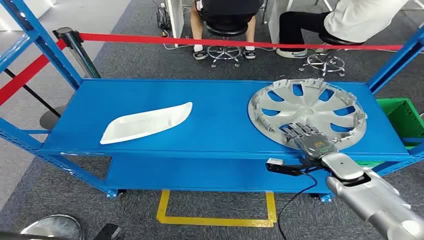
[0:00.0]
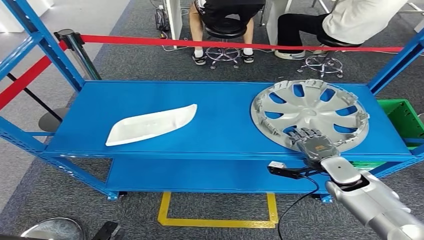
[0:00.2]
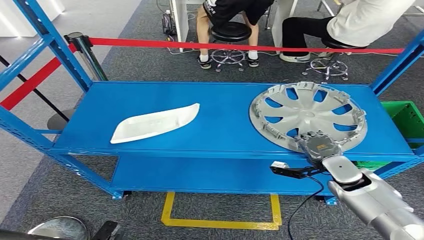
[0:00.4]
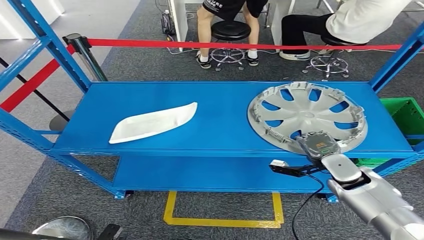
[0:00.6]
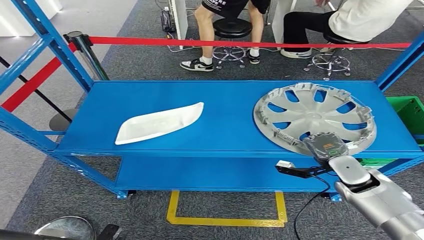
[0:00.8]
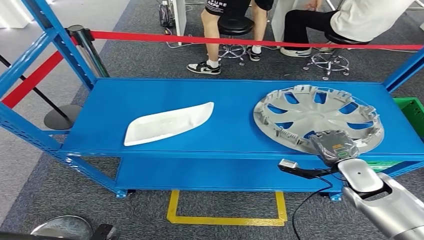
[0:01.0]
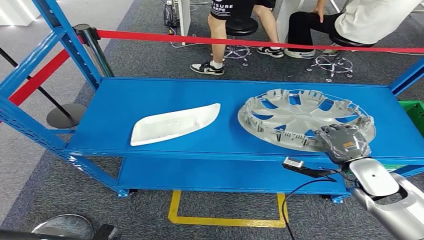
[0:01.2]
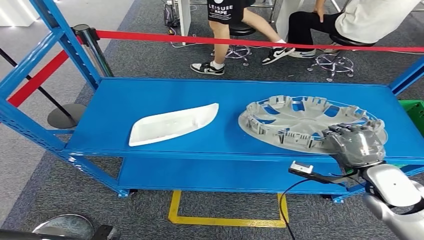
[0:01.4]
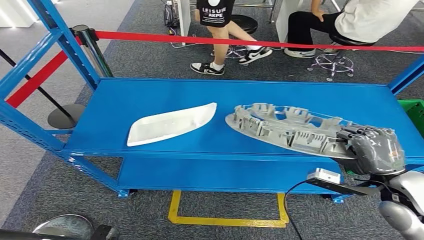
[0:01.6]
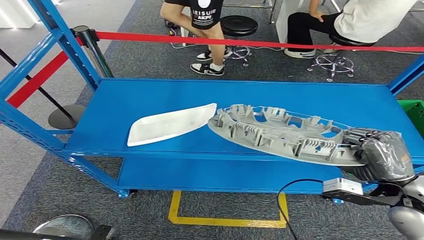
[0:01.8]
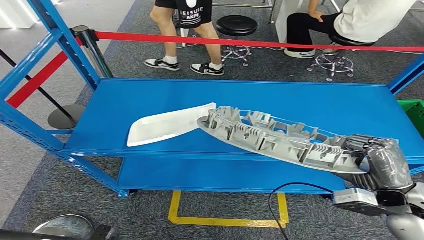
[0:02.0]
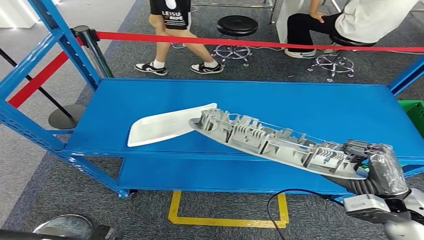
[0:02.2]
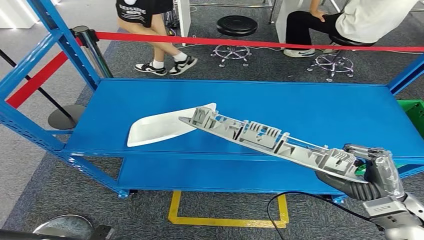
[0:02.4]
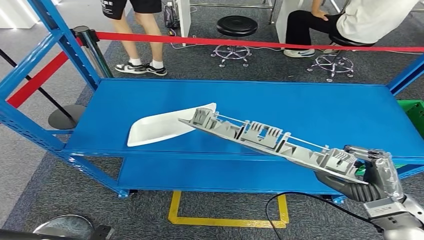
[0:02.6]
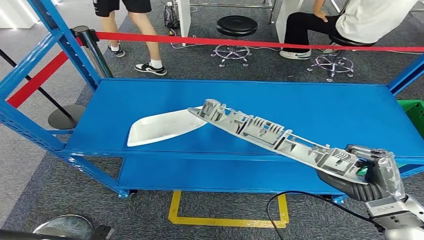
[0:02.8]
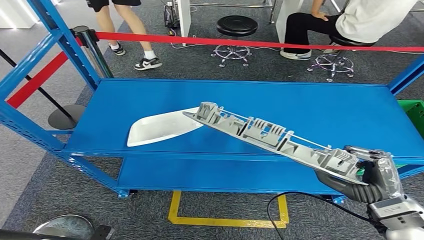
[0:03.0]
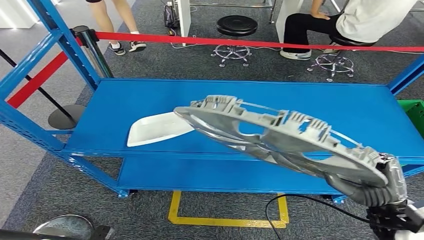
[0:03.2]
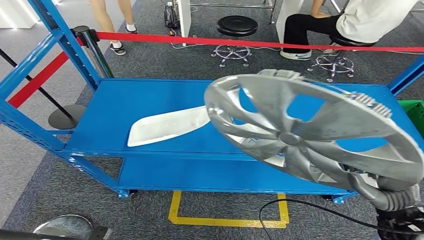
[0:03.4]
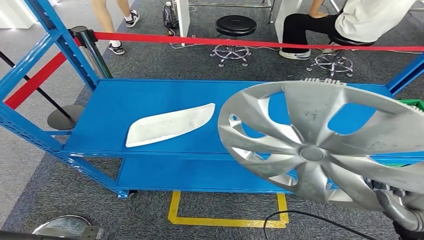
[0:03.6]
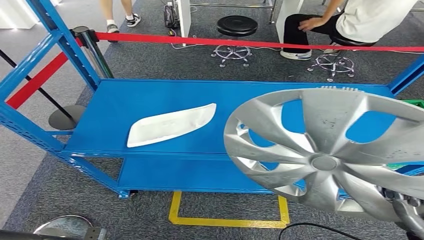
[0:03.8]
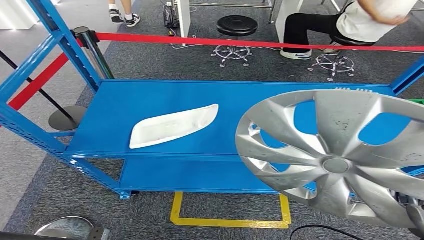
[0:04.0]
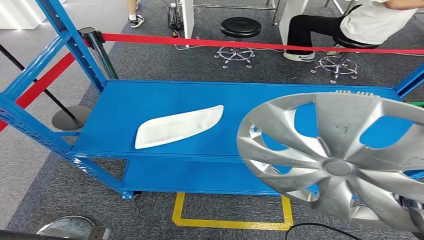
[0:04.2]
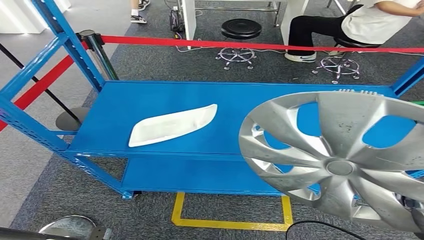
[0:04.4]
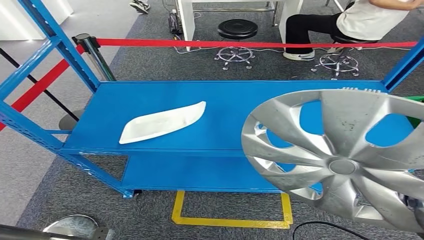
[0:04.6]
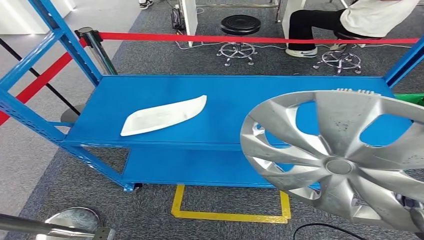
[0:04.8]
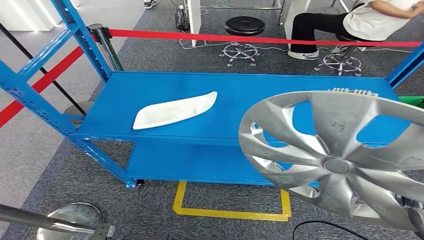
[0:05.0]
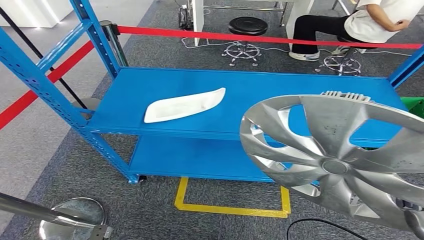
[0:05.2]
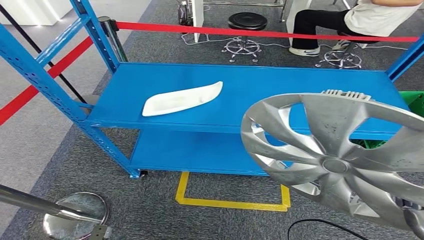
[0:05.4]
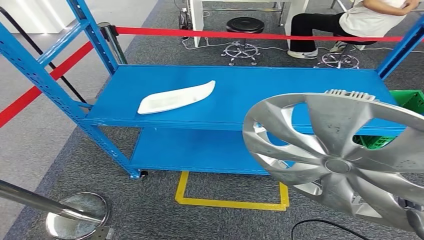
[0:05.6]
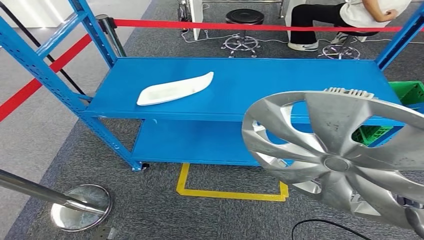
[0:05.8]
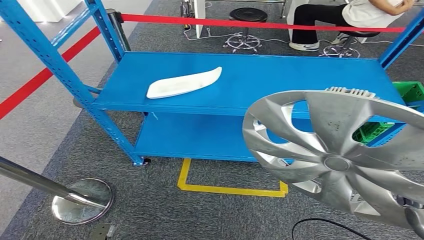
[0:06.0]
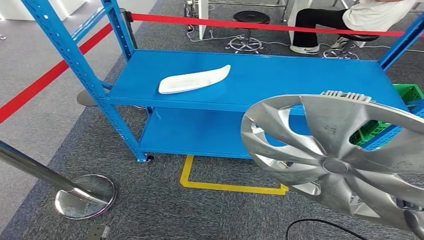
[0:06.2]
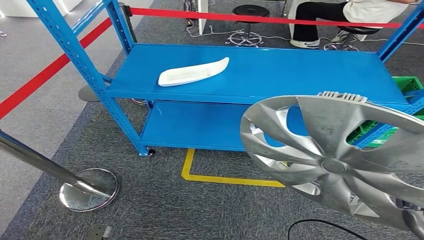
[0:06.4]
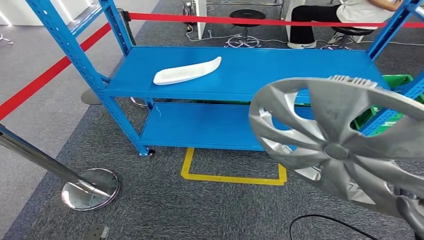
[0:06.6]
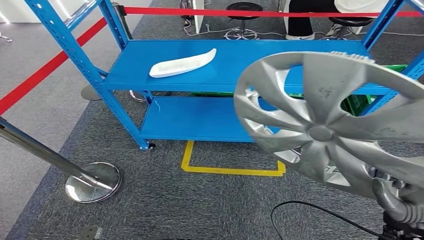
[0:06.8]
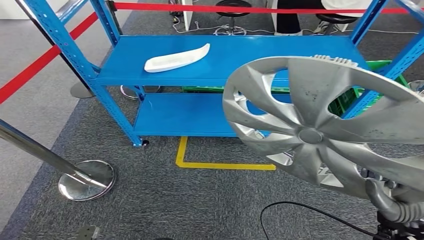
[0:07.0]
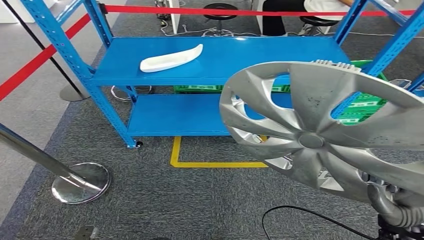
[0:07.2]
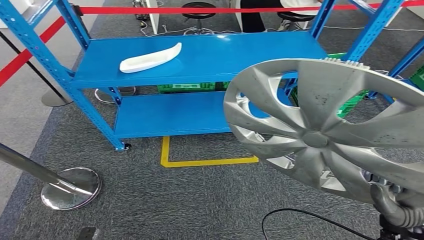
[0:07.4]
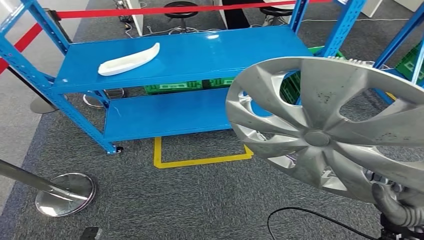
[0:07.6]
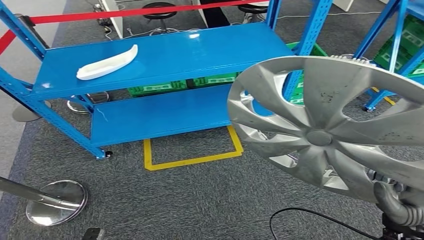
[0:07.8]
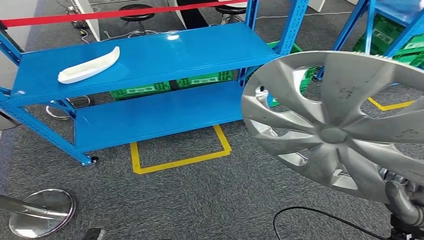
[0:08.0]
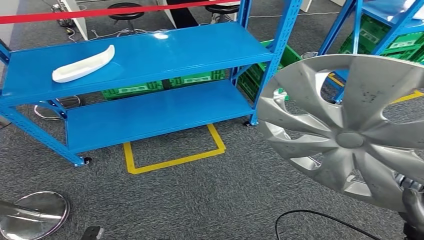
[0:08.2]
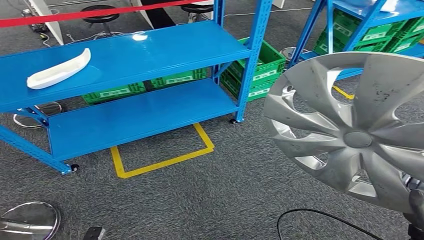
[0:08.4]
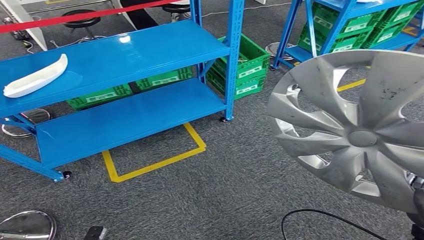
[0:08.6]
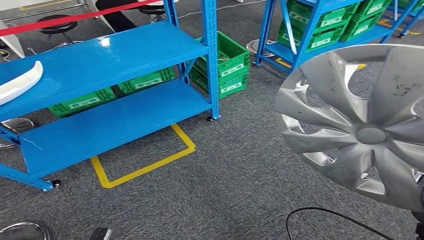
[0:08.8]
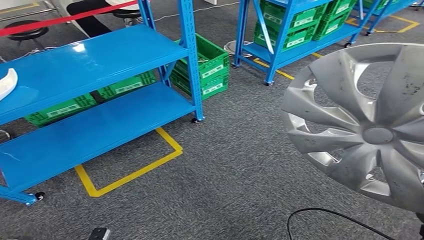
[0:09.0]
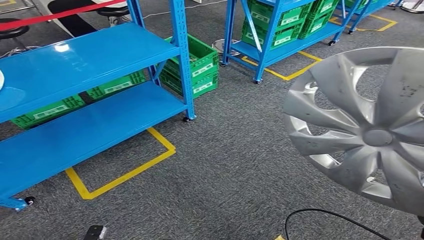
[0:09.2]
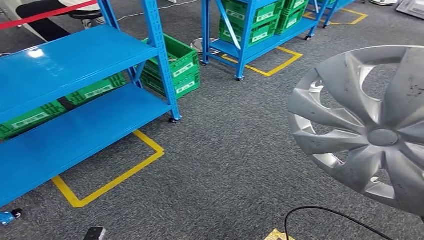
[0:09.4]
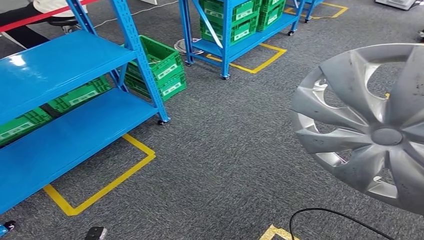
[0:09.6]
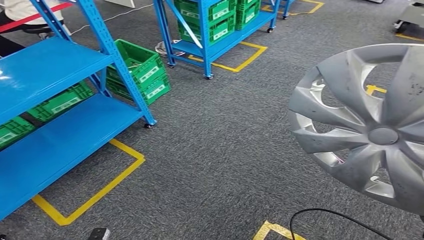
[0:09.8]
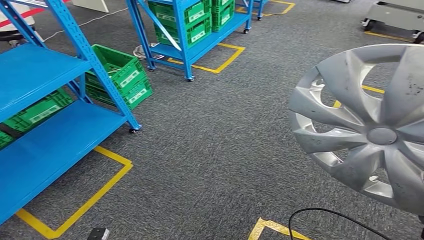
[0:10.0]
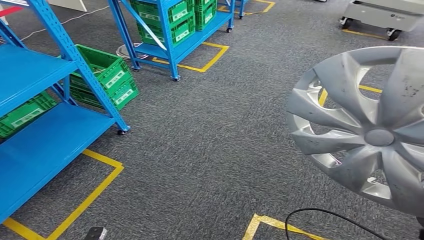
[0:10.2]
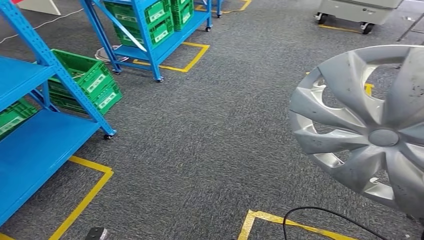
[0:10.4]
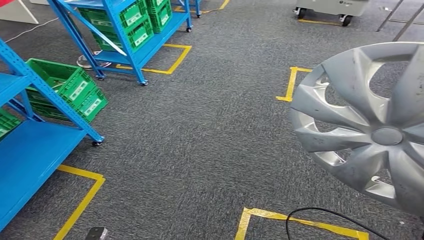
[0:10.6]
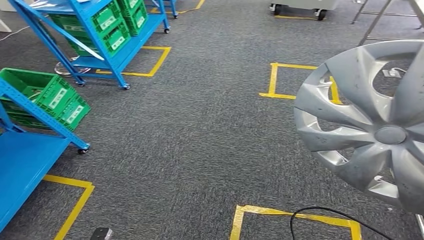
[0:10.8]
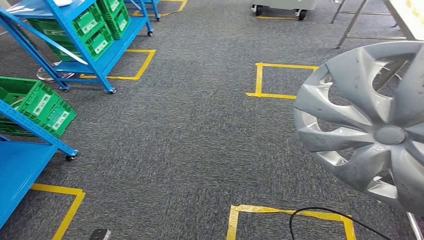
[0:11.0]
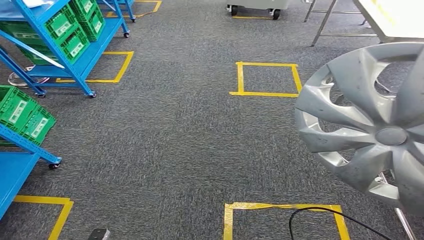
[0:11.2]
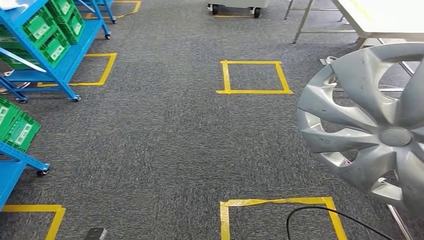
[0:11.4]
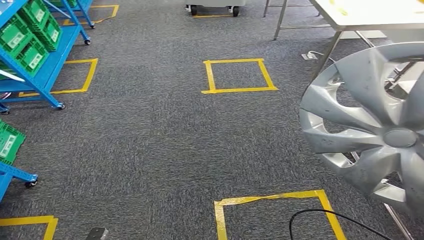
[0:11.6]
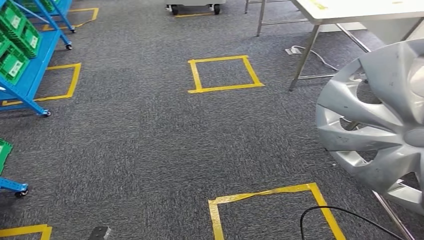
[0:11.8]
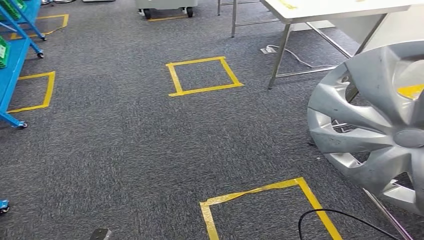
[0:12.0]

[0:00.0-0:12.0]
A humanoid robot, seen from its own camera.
Step, 0:00.0 to 0:02.8: Pick up the small component from the shelf.
0:01.6 to 0:03.0: The right hand shifts some 5 cm backward.

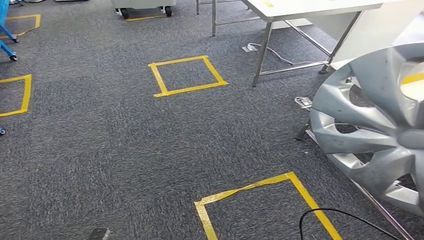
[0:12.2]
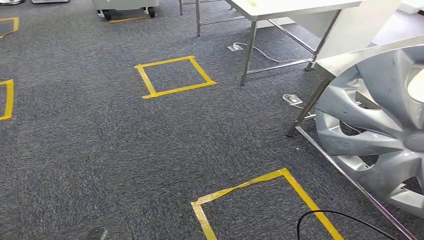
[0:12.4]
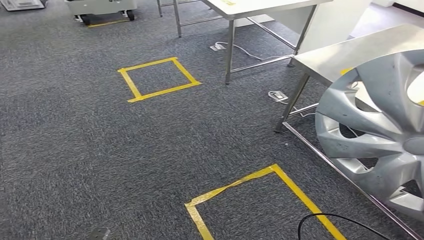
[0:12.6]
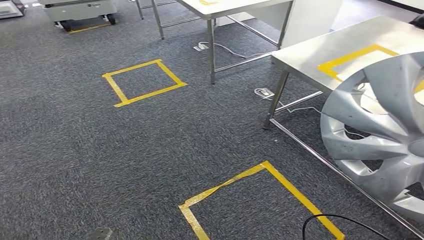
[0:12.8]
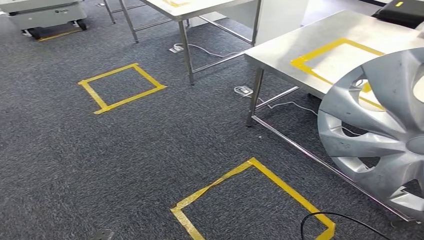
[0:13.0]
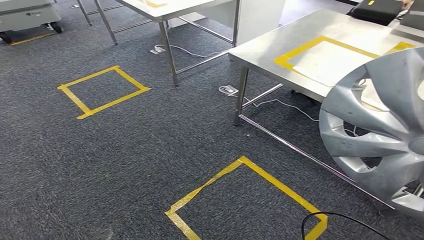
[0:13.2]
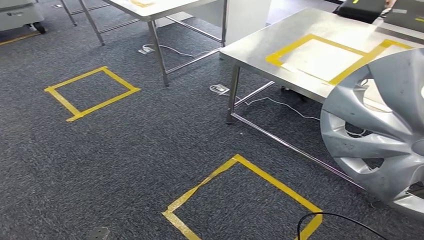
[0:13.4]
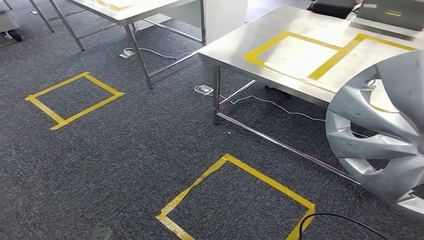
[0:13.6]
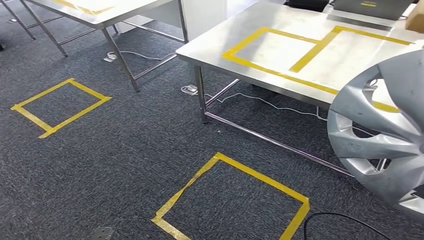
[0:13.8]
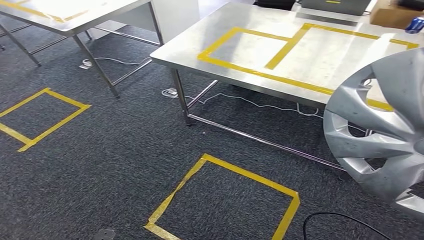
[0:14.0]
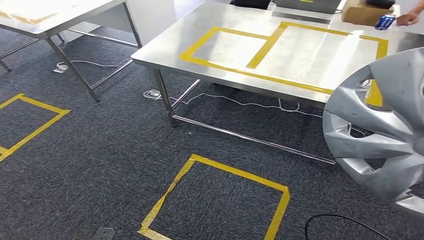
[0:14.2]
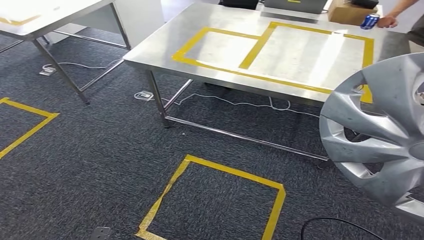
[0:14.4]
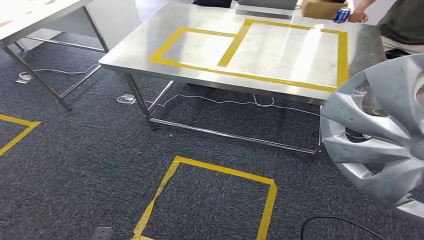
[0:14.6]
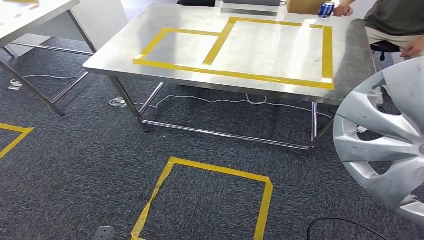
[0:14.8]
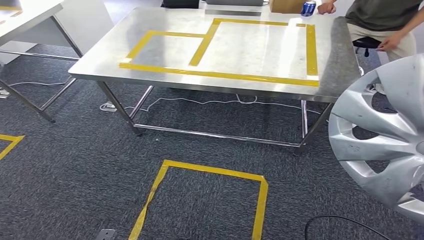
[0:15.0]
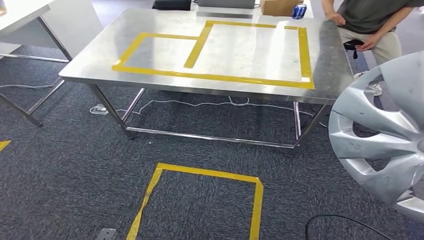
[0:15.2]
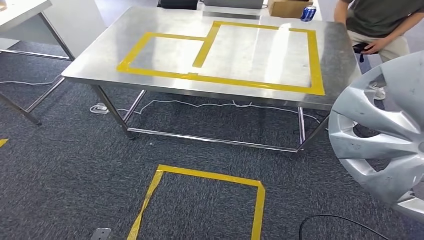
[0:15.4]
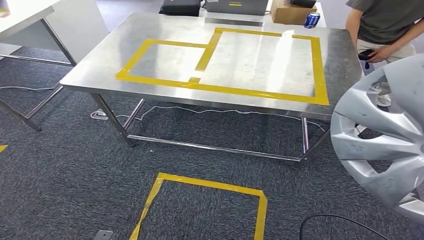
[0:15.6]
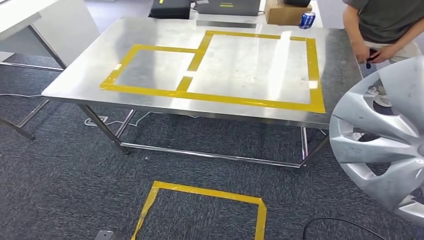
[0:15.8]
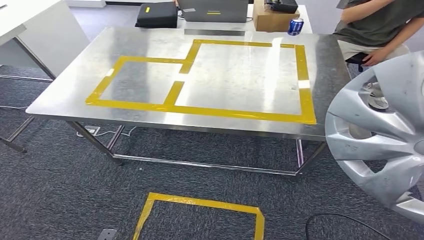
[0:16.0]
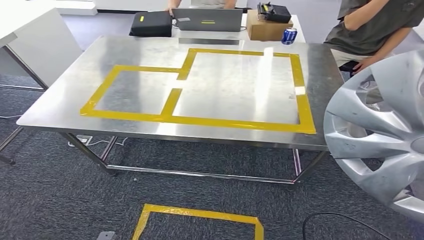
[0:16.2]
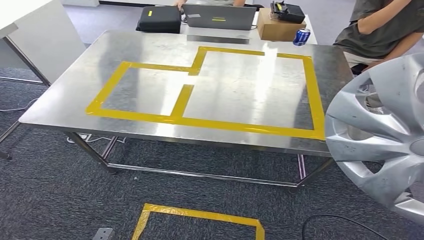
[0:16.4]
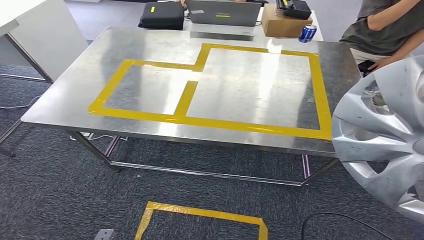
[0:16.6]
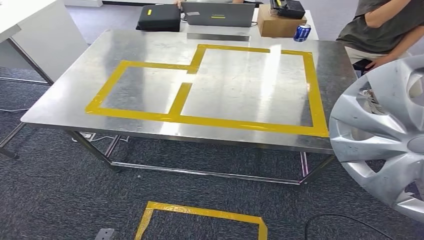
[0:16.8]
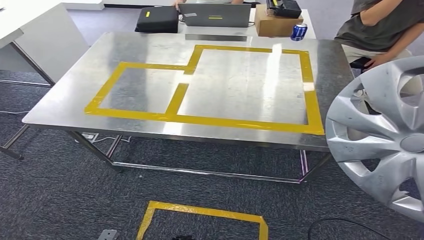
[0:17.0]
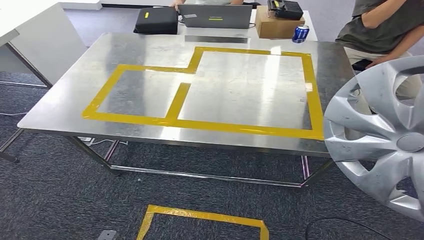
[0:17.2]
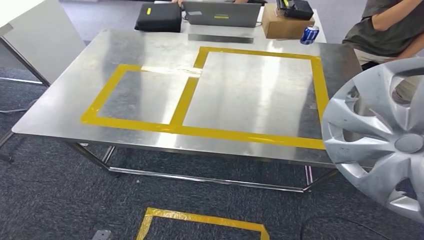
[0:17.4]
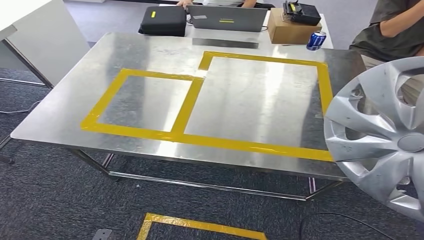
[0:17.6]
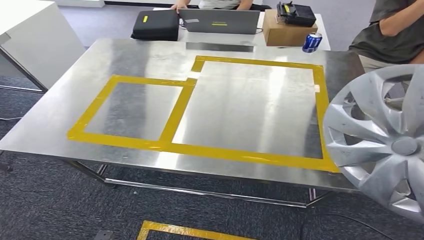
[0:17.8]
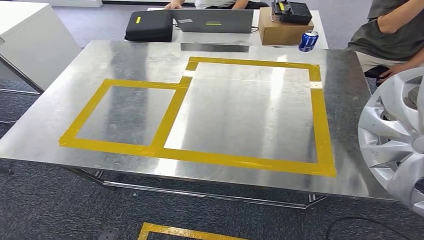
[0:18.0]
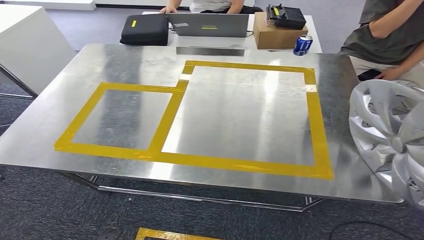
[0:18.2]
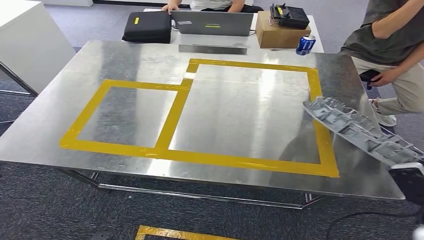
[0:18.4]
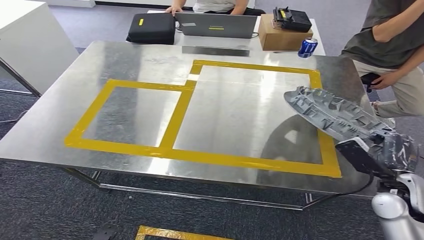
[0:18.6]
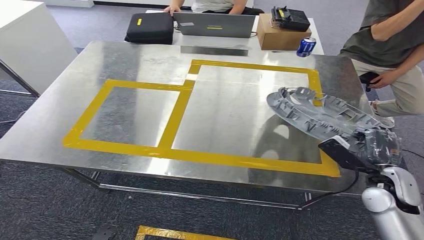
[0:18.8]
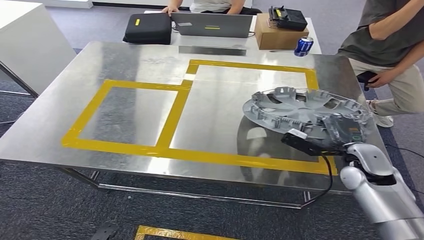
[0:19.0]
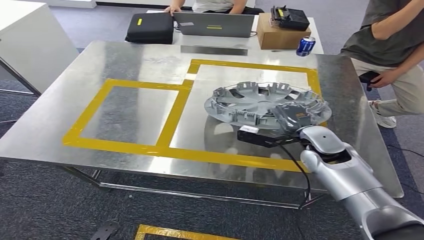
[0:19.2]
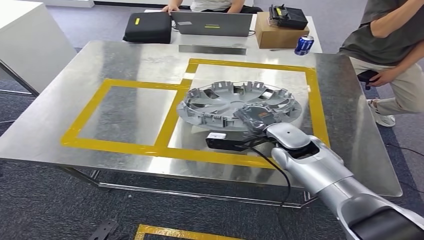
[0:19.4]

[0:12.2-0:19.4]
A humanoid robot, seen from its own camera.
Step, 0:12.2 to 0:15.0: Move the small component to the workbench.
